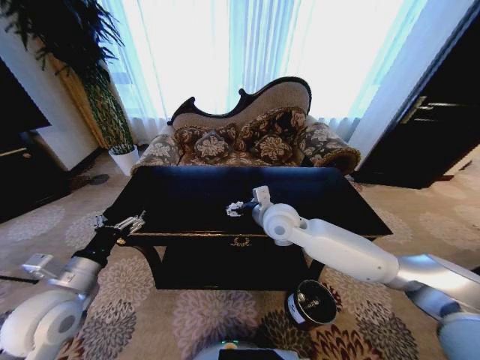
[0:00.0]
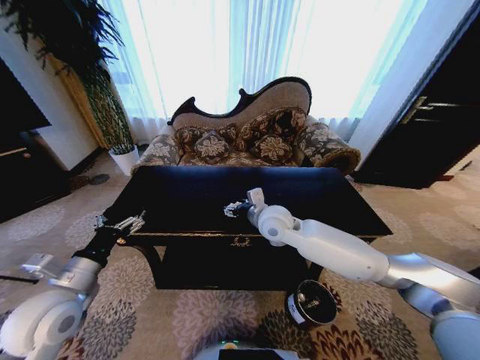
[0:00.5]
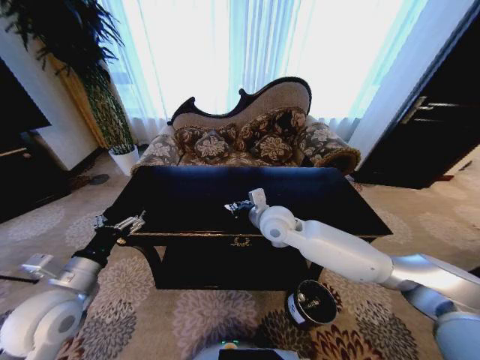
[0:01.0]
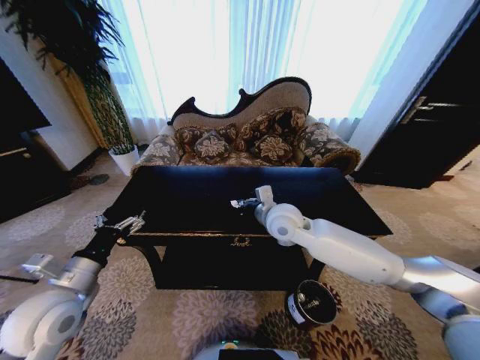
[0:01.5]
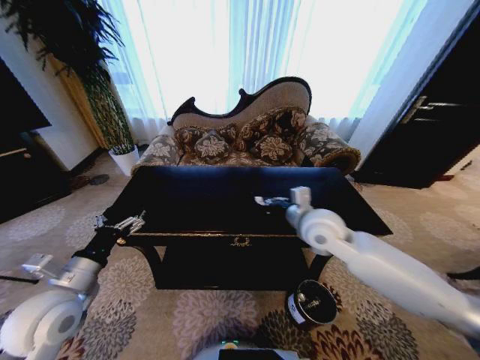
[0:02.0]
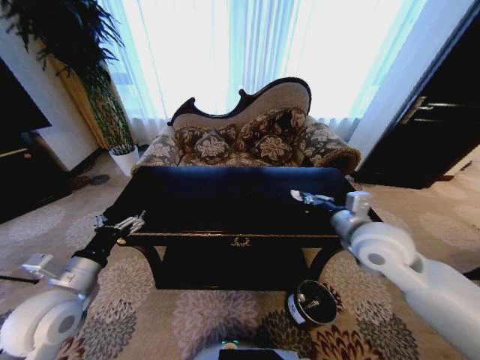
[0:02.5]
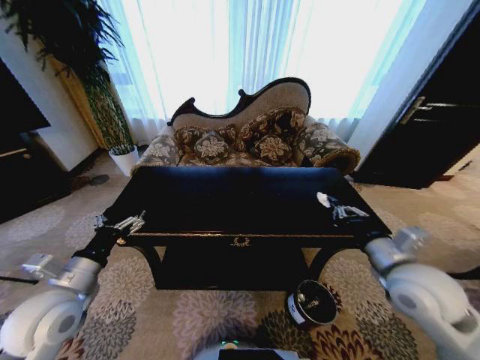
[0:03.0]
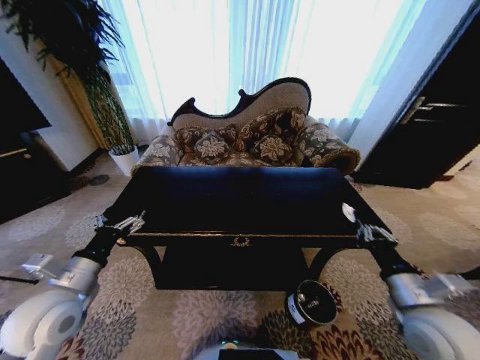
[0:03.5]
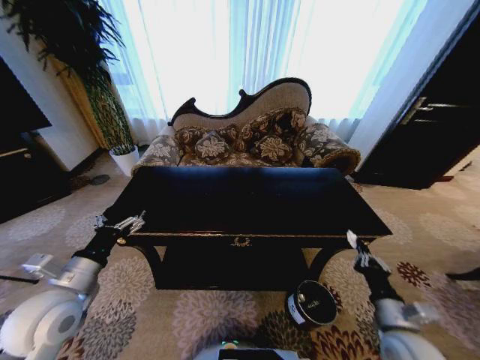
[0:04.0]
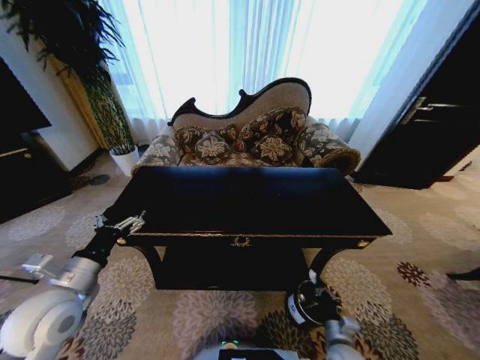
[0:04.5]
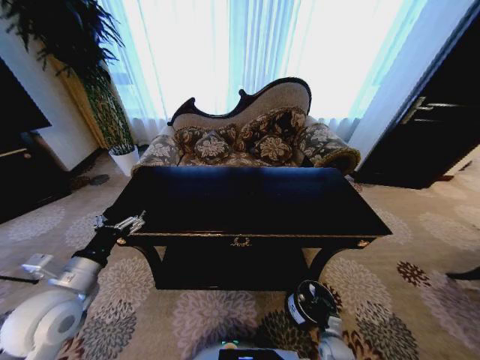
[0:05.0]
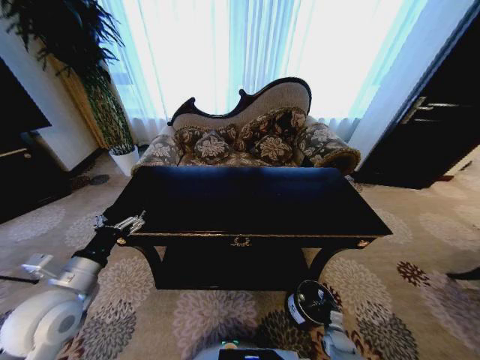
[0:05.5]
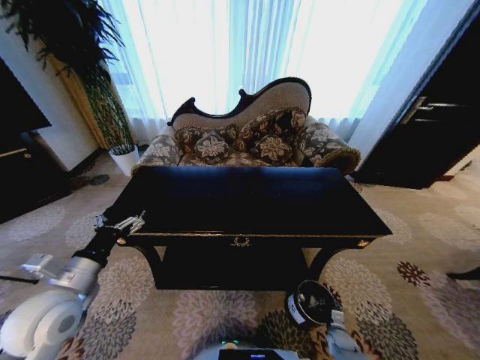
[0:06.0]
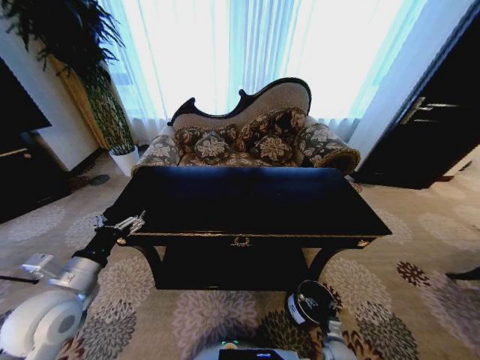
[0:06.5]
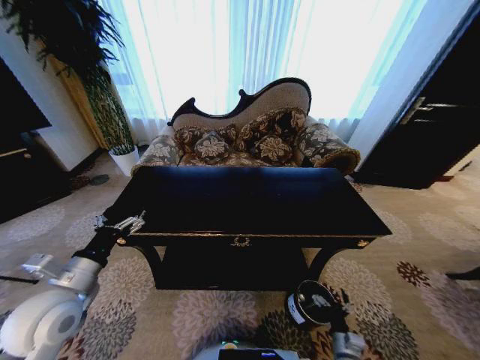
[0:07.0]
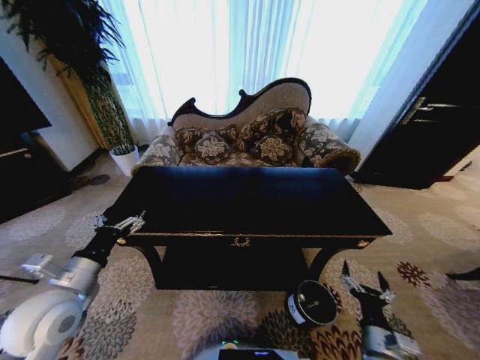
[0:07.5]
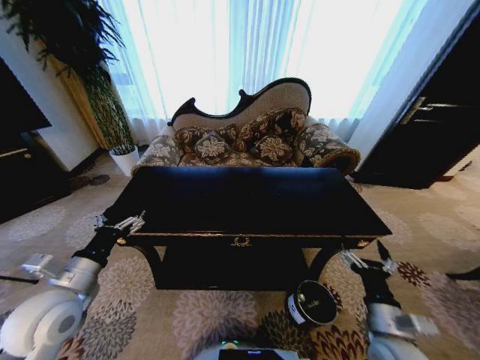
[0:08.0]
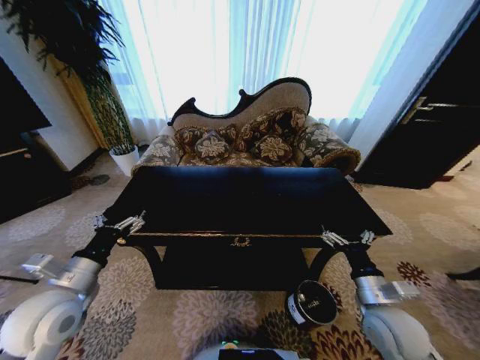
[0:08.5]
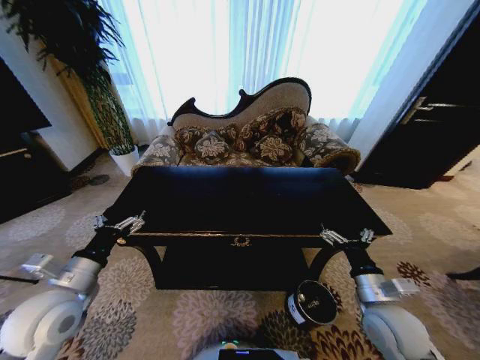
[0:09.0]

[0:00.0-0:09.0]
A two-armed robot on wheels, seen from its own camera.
Task of the whole recording: Move to the front of the table and place the trash on the table into the trash bin.
0:00.0 to 0:02.0: The right gripper goes about 10 cm to the right, and closes.
0:02.0 to 0:04.5: The right gripper shifts approximately 40 cm downward and backward.
0:04.5 to 0:07.0: The right gripper heads downward, covering roughly 10 cm, and opens up.
0:07.0 to 0:09.0: The right gripper moves upward, about 25 cm.
